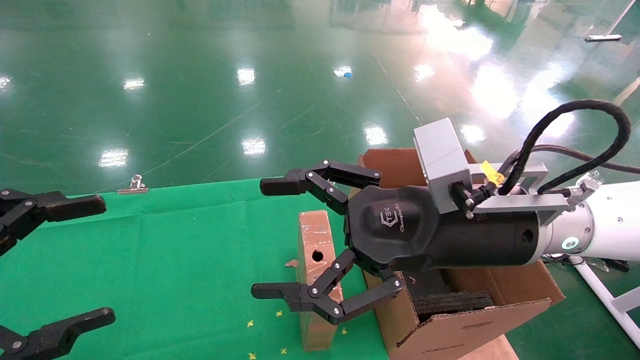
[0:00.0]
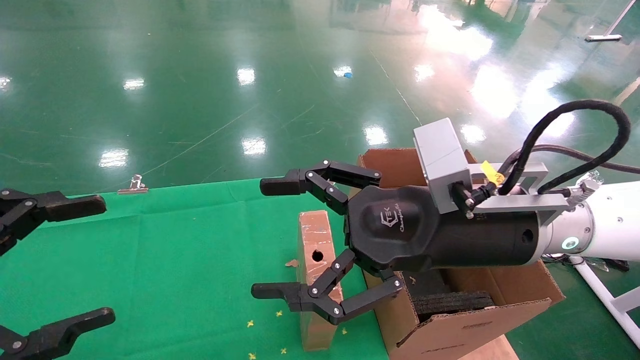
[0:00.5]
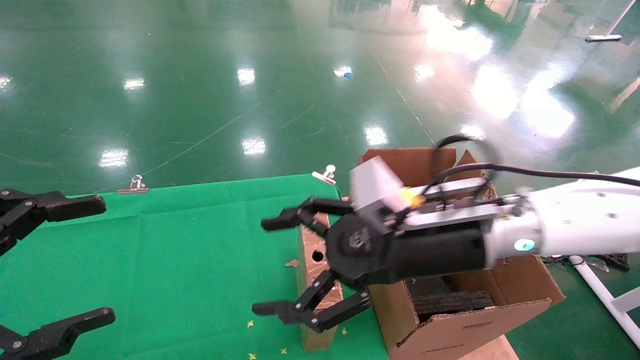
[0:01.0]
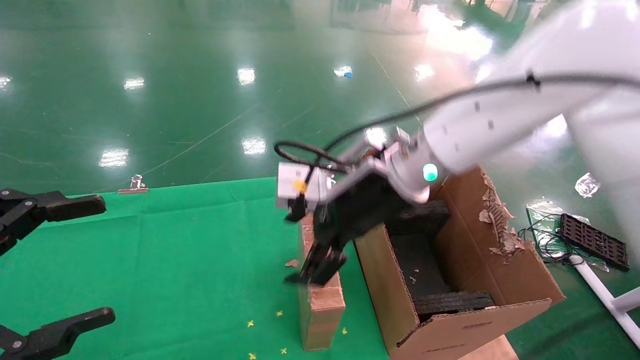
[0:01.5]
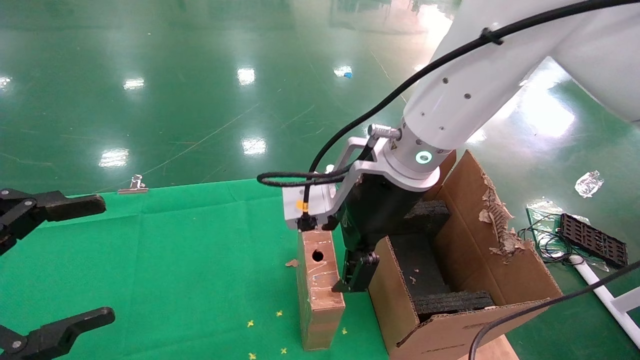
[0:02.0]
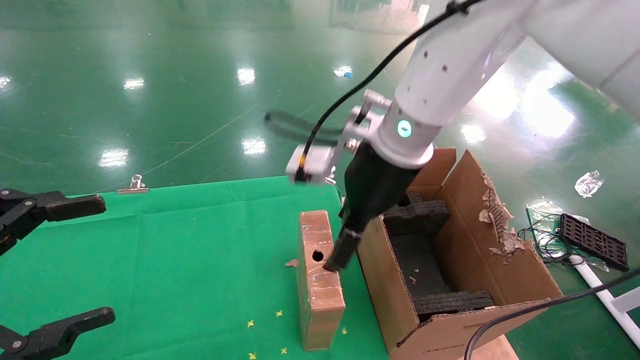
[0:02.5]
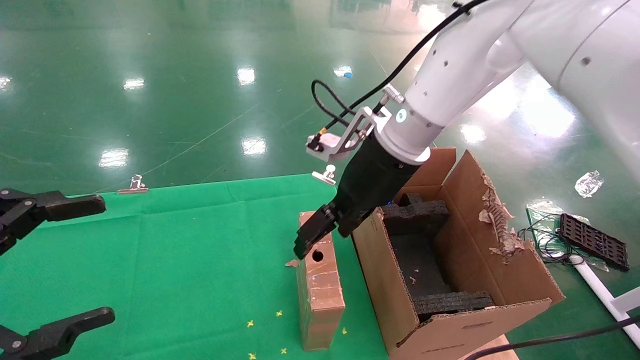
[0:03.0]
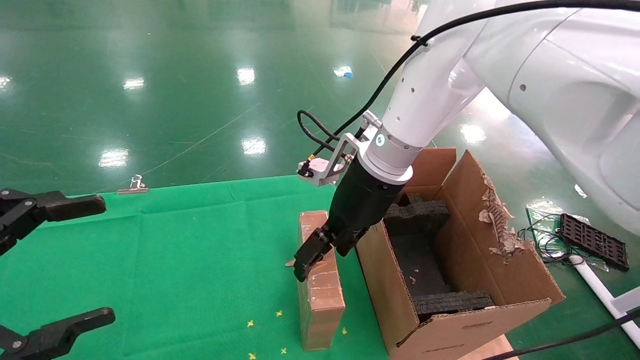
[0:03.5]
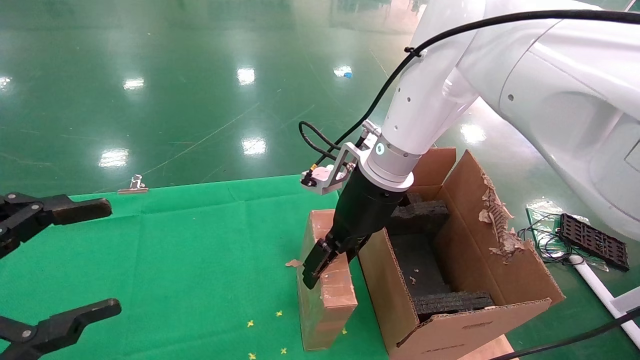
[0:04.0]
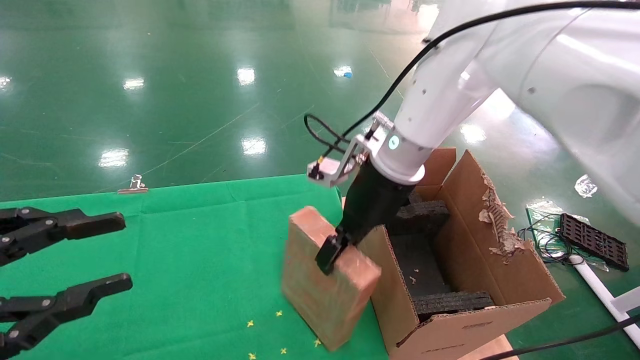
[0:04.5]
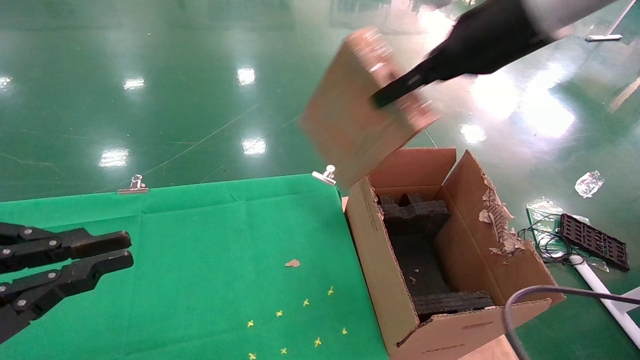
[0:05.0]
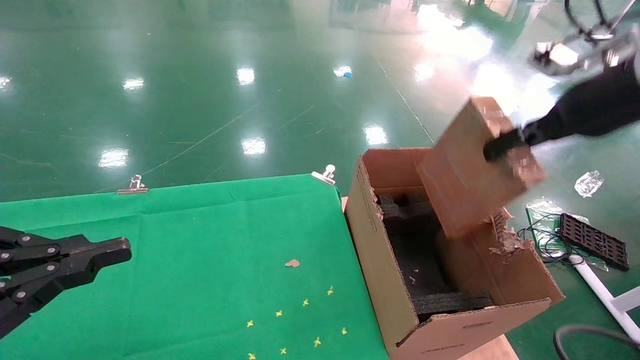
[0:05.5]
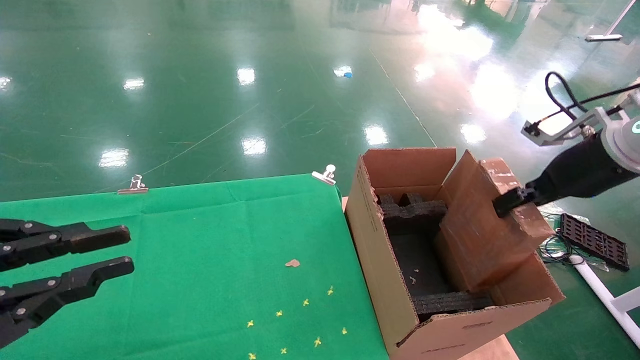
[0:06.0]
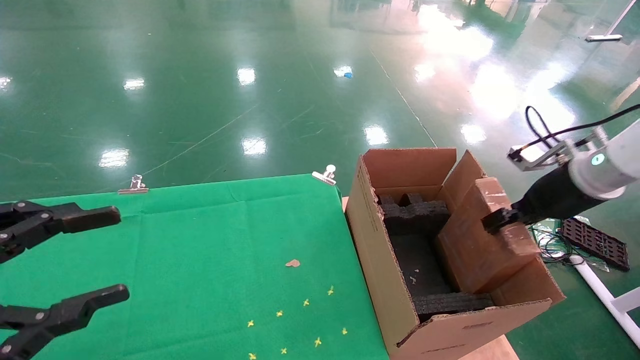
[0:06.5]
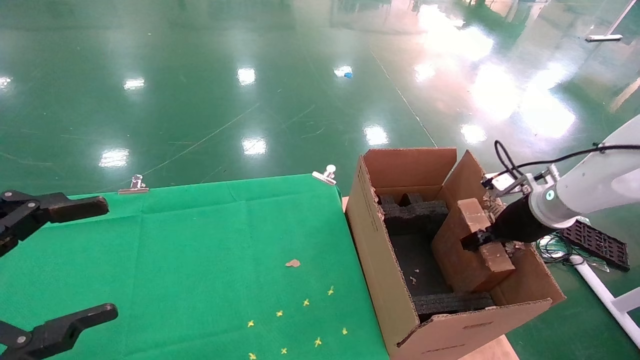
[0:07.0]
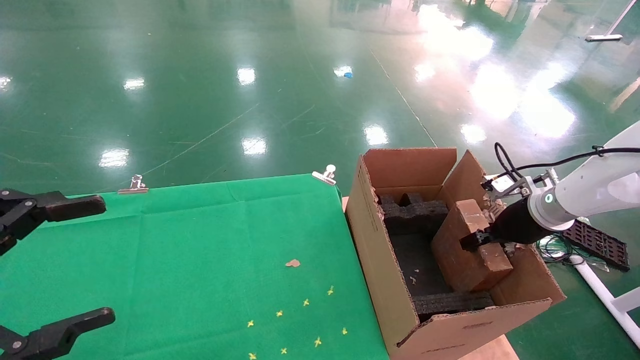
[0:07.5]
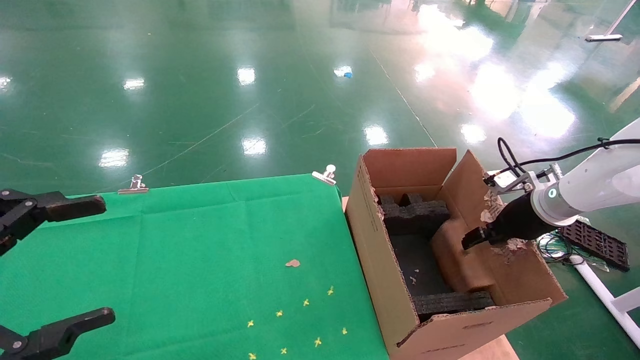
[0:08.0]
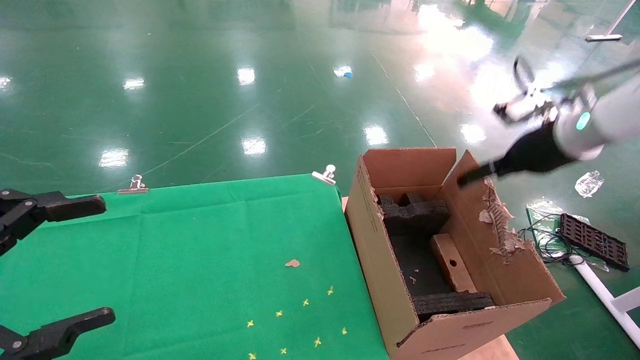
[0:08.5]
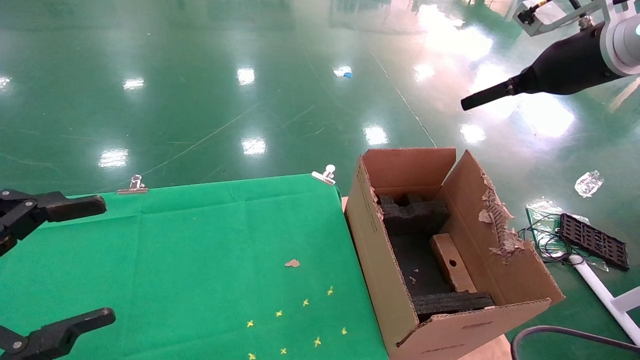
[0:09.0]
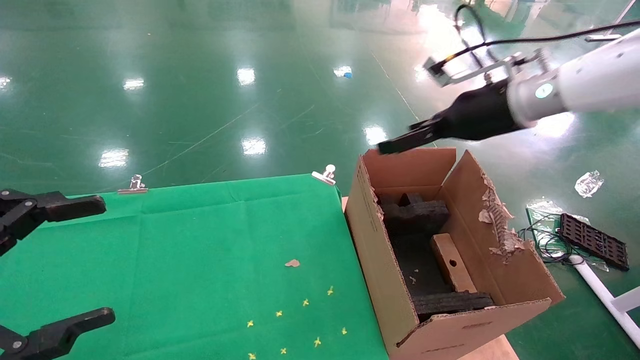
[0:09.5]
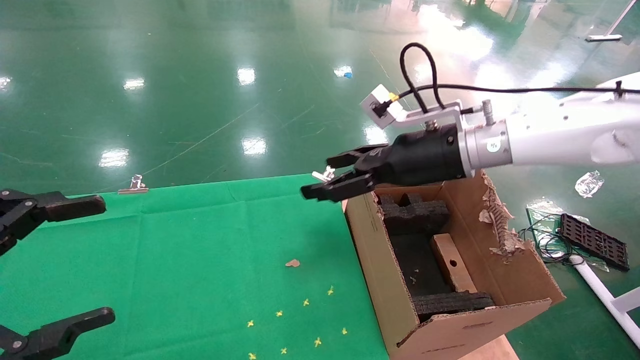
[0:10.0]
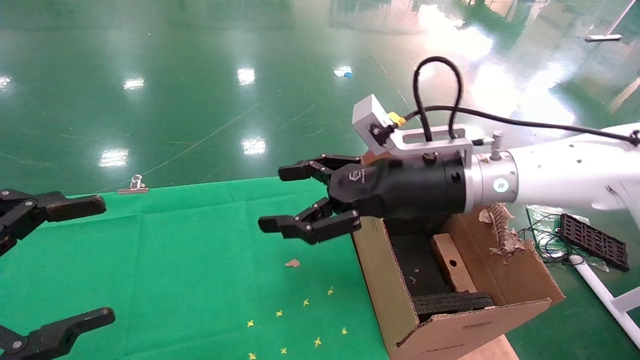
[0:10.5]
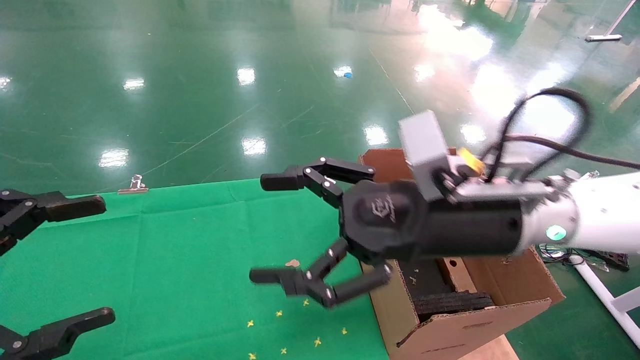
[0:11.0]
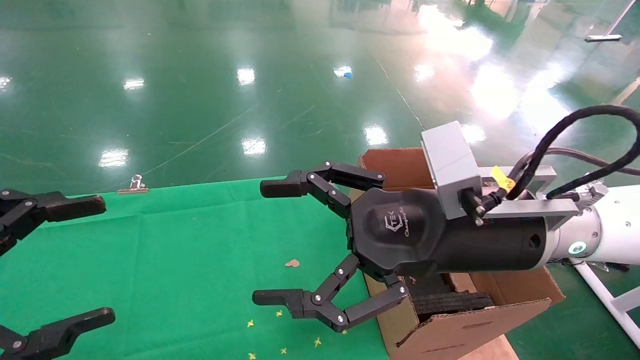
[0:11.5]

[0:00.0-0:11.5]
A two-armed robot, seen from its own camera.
Task of the whole recording: using a robotic arm to pick up a cardboard box and palace it the carton.
Step, 0:01.0 to 0:04.0: Pick up the mouse and the power cord paper box.
Step, 0:04.5 to 0:08.0: Place the mouse and the power cord paper box into the container.
0:00.0 to 0:02.0: The right gripper heads forward and to the left, covering approximately 10 cm.
0:02.0 to 0:04.0: The right gripper goes roughly 5 cm forward.
0:04.0 to 0:06.0: The right gripper shifts some 30 cm to the right, and closes its fingers. The left gripper closes up.
0:06.0 to 0:07.5: The right gripper goes about 15 cm downward and forward; the left gripper opens up.
0:07.5 to 0:09.5: The right gripper moves upward and to the left, roughly 20 cm, and opens.
0:09.5 to 0:11.5: The right gripper is displaced backward, to the left and downward by roughly 20 cm.

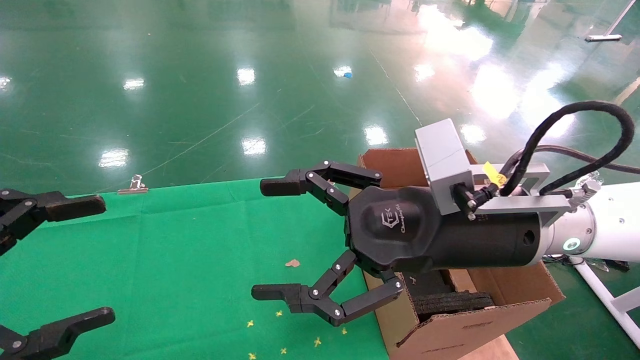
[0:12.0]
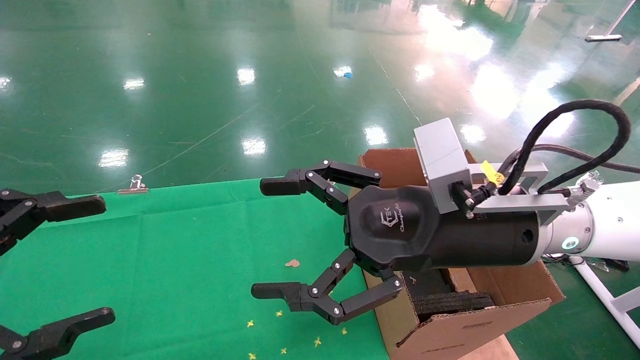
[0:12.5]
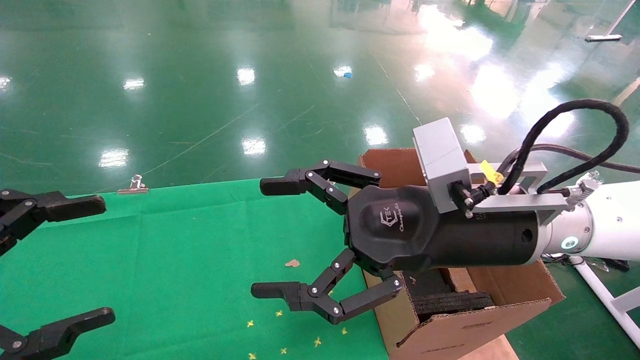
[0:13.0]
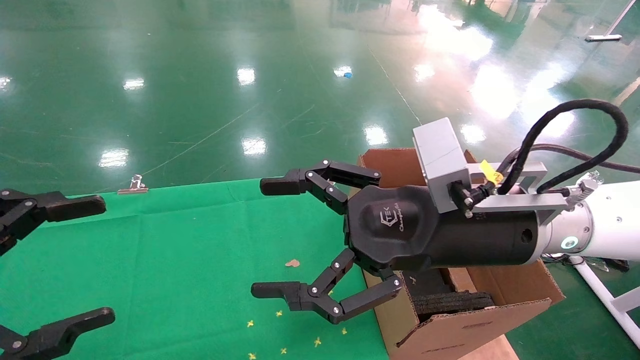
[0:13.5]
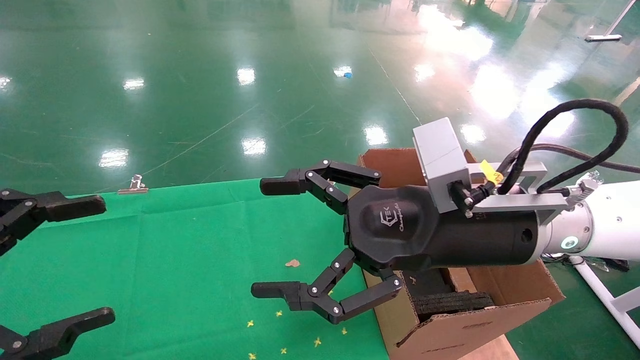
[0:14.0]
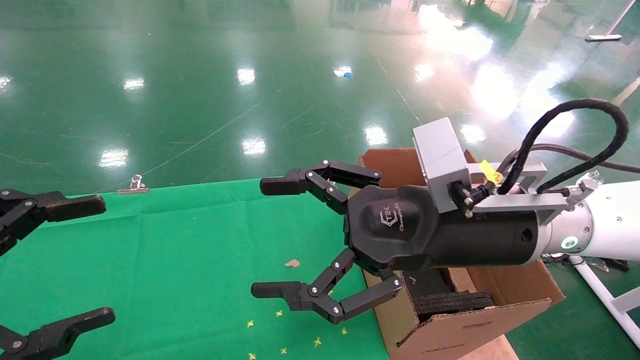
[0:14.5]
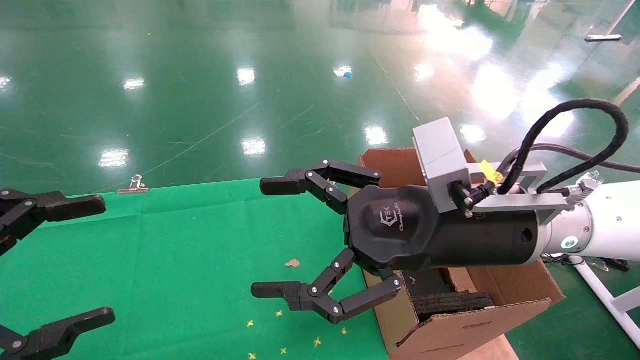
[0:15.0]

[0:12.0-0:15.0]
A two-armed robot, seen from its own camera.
Task of the whole recording: using a robotic arm to pick up a cardboard box and palace it the carton.
0:12.0 to 0:15.0: Both grippers stay put.
